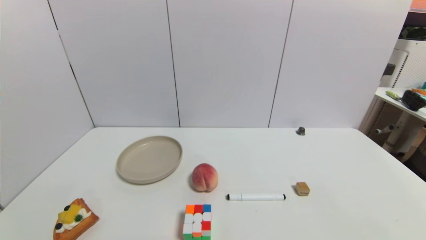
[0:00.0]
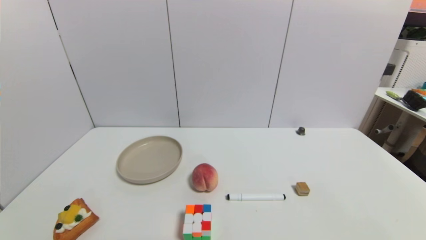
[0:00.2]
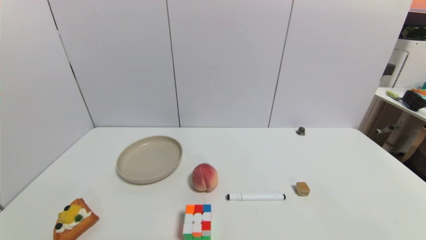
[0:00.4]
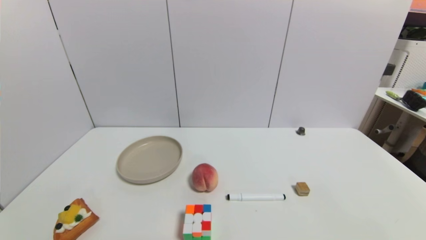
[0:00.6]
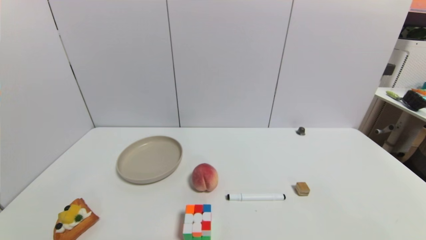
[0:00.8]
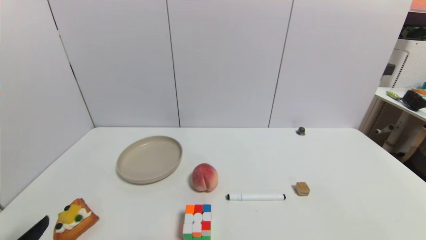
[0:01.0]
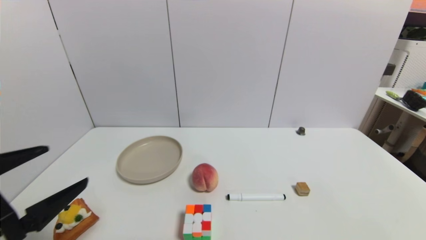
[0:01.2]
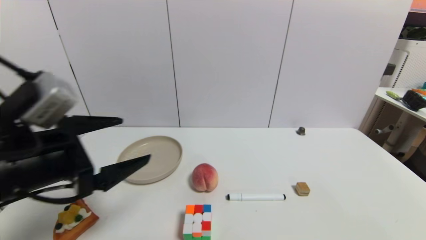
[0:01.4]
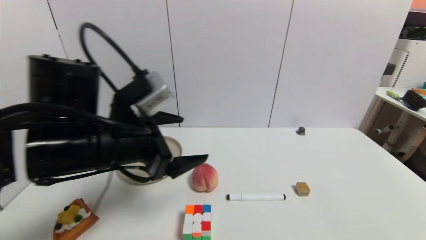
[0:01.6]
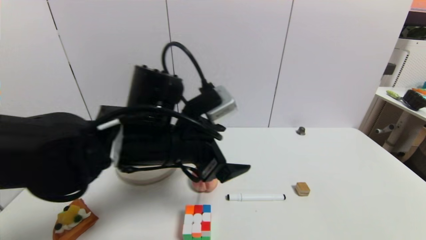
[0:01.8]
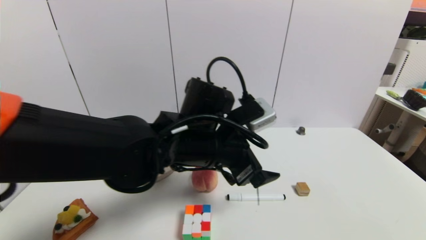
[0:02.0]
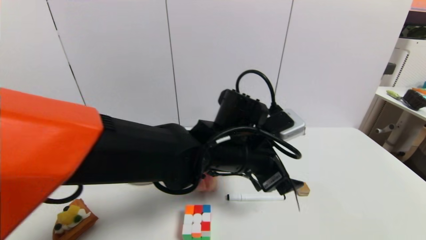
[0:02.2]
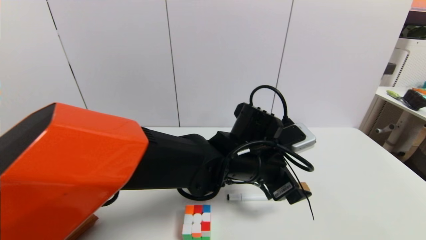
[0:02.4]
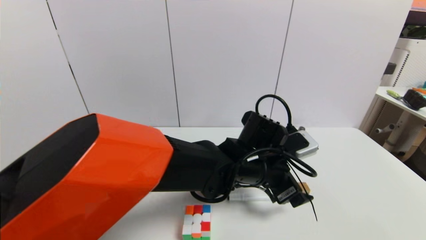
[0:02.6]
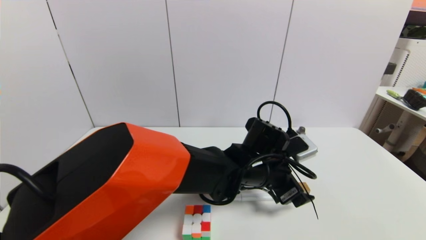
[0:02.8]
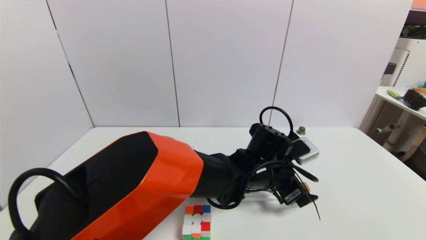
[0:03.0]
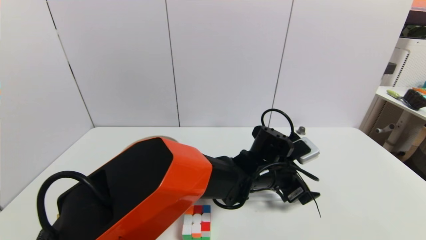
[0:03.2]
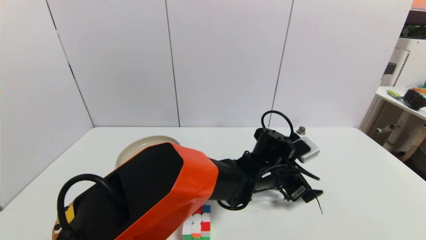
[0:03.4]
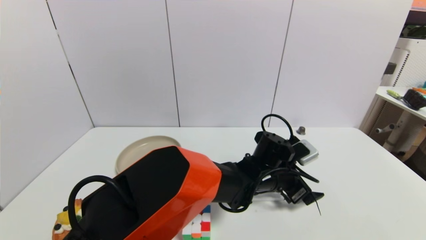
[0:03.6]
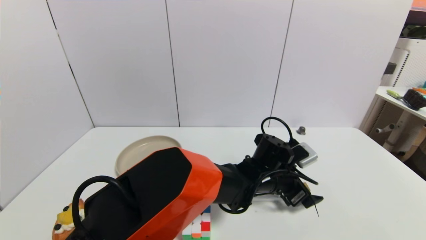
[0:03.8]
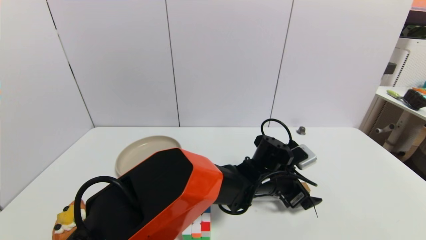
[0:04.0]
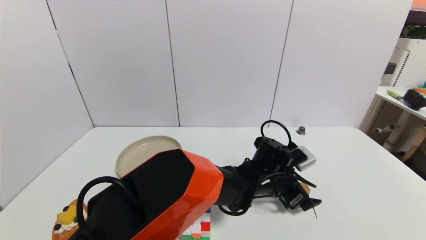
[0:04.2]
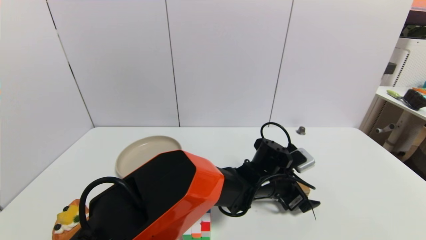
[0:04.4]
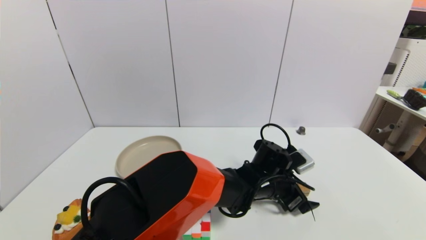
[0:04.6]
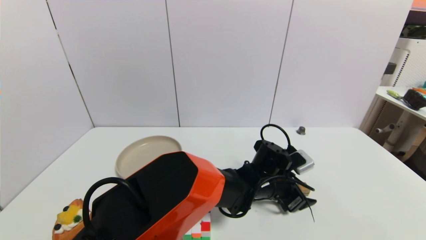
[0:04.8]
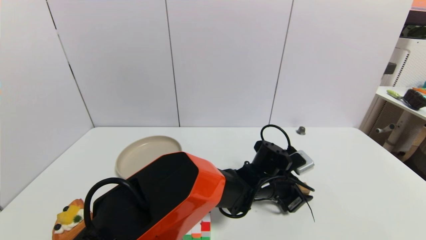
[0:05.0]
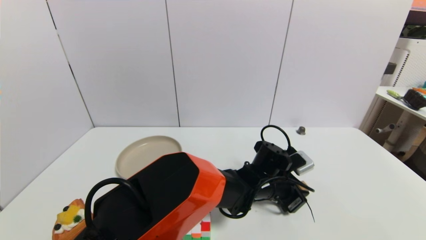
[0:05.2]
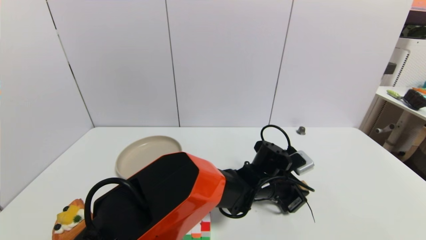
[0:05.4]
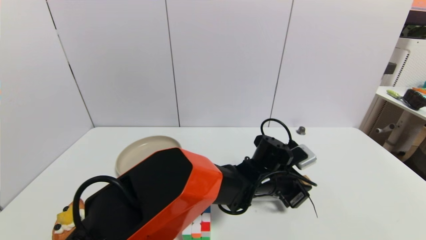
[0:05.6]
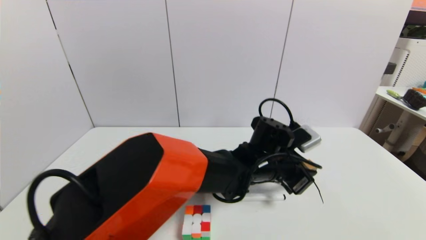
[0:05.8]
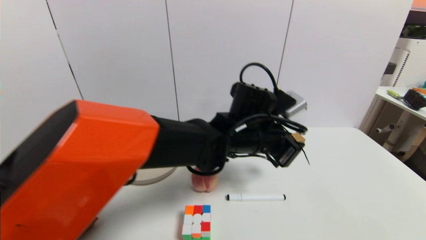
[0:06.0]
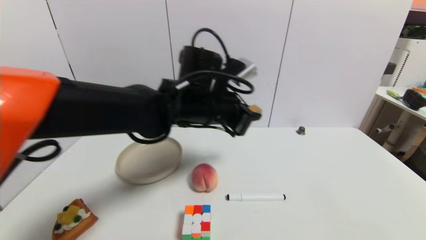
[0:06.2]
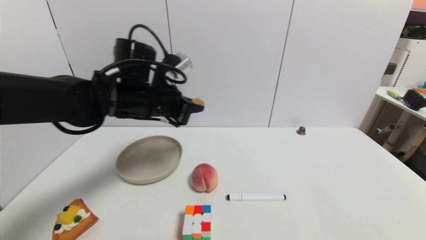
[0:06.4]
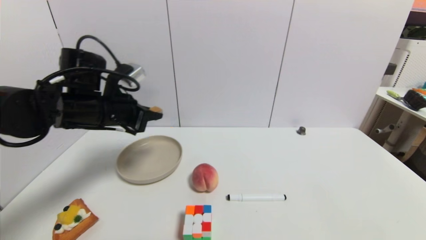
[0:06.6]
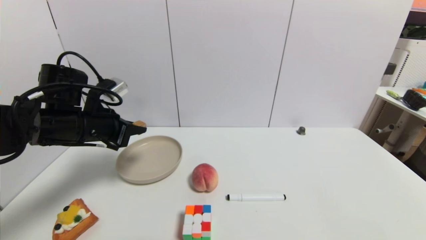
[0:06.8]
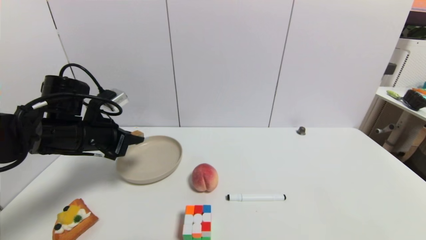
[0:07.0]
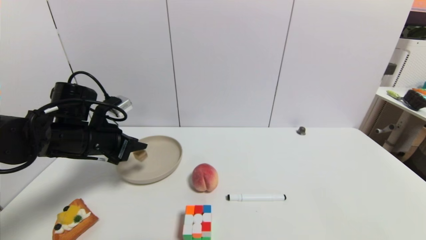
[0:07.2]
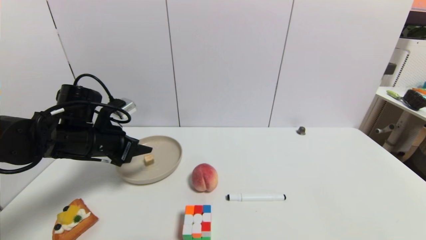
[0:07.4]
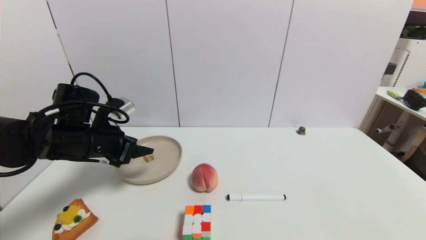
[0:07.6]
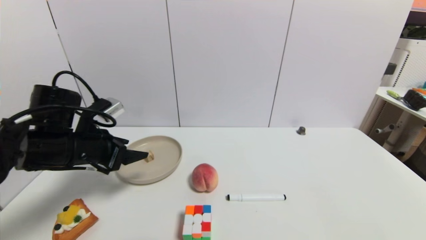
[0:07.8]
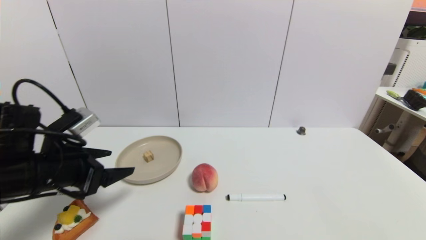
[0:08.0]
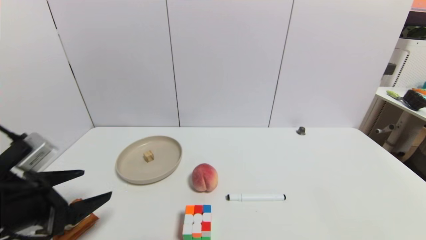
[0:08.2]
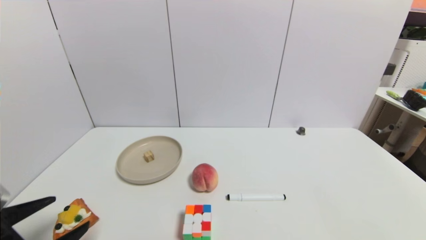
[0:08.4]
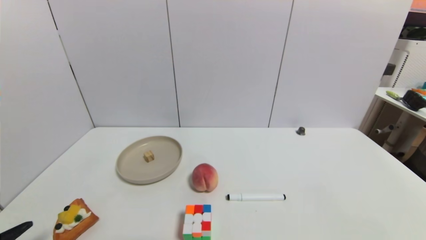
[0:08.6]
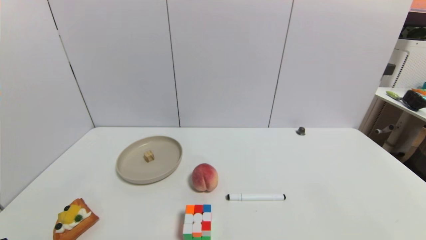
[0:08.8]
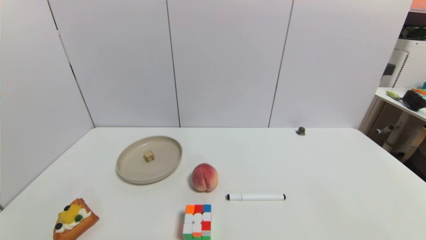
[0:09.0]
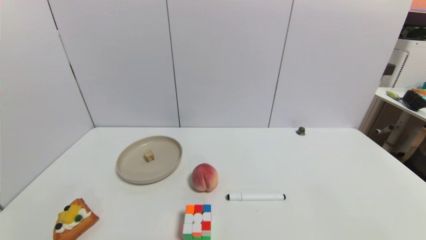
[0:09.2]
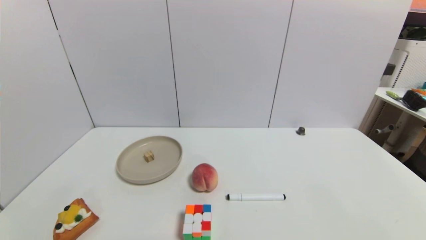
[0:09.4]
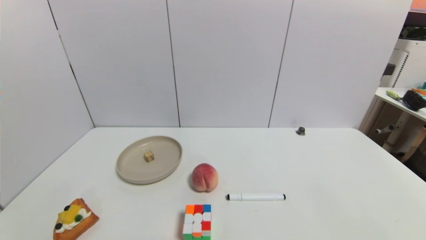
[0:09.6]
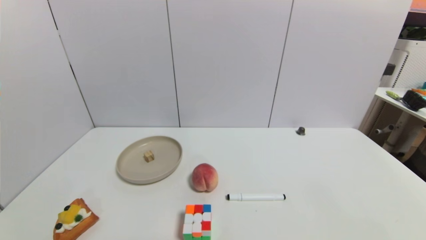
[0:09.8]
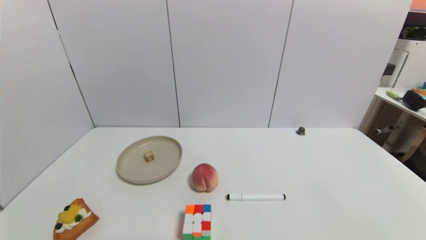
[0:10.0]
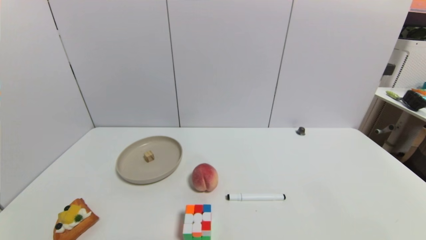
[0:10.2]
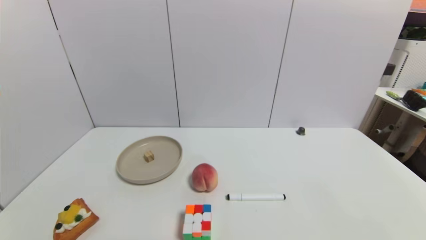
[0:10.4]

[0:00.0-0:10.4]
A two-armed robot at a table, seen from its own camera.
Task of the whole recording: use a gripper to pick the target object and place on the brown plate.
Step, 0:00.0 to 0:05.2: Grasp the square wooden block with the left gripper.
Step, 0:05.4 to 0:07.6: Place the square wooden block on the brown plate with the left gripper.
0:00.0 to 0:01.4: The left gripper goes approximately 25 cm forward, upward and to the right.
0:01.4 to 0:03.0: The left gripper is displaced to the right and downward by some 35 cm.
0:03.0 to 0:04.4: The left gripper ends up about 5 cm from where it was.
0:04.4 to 0:06.0: The left gripper heads upward and to the left, covering roughly 15 cm, and closes.
0:06.0 to 0:07.4: The left gripper moves to the left, roughly 30 cm, and opens.
0:07.4 to 0:09.0: The left gripper shifts approximately 30 cm backward, and opens its fingers.
